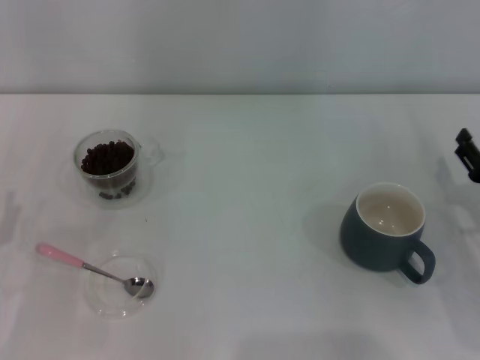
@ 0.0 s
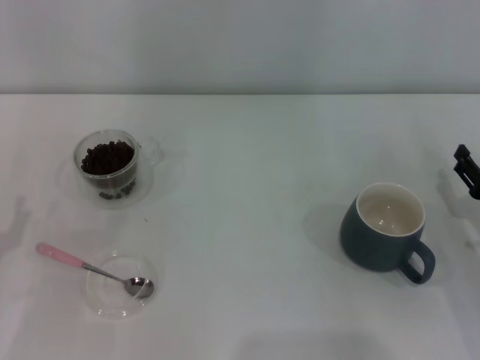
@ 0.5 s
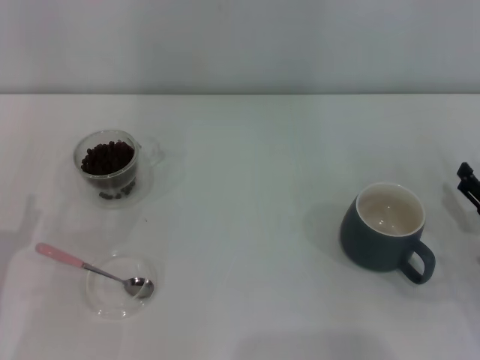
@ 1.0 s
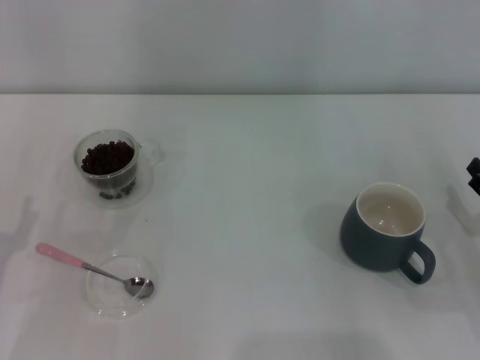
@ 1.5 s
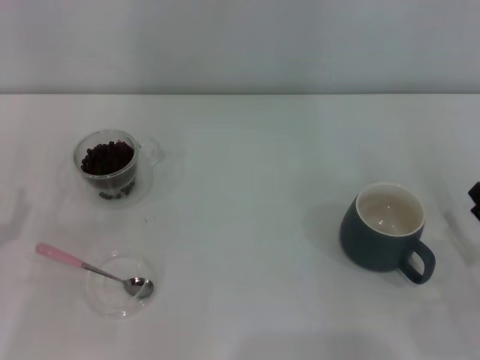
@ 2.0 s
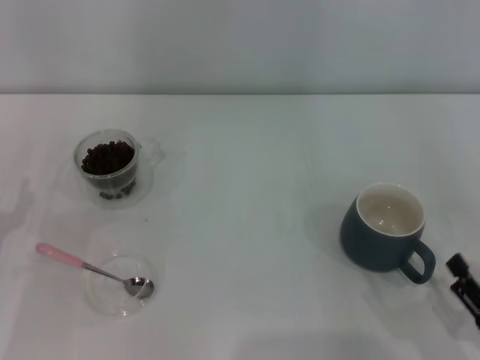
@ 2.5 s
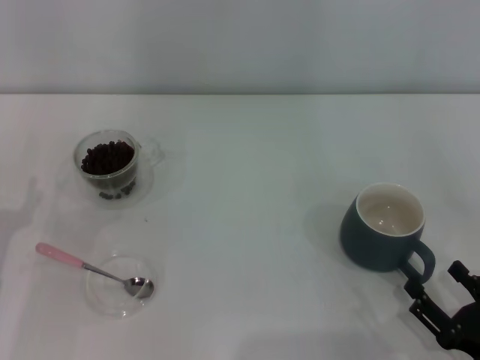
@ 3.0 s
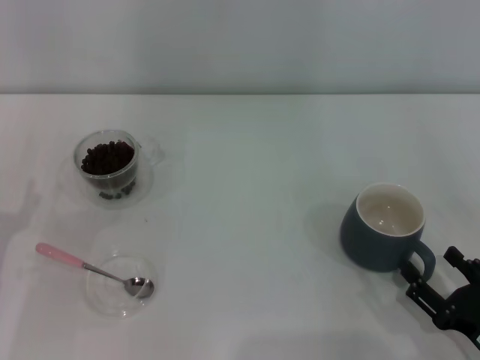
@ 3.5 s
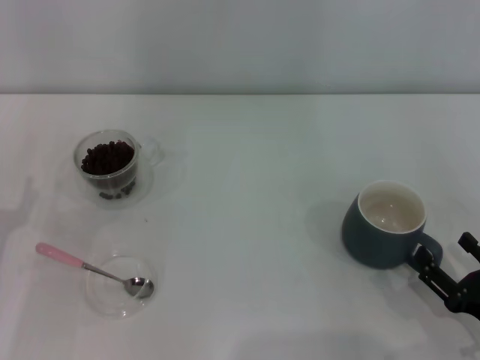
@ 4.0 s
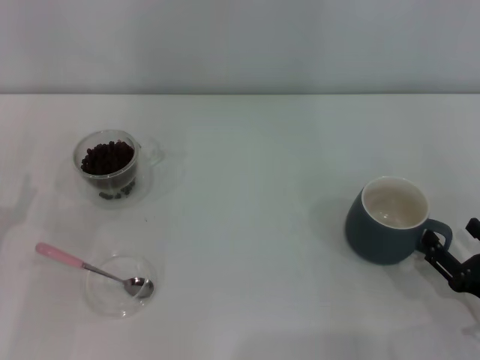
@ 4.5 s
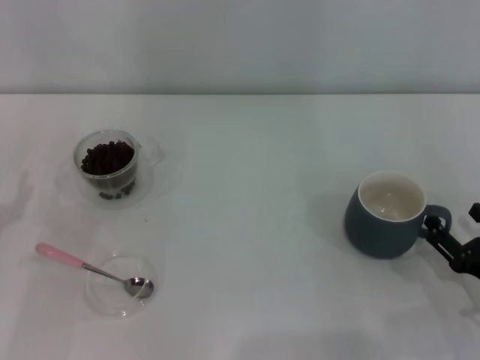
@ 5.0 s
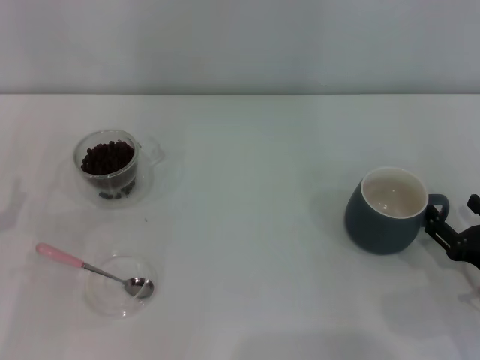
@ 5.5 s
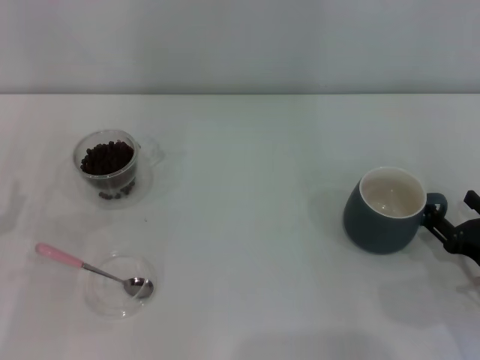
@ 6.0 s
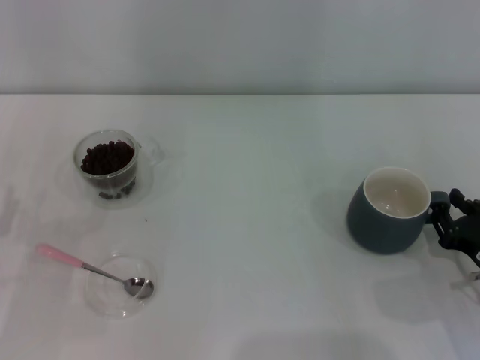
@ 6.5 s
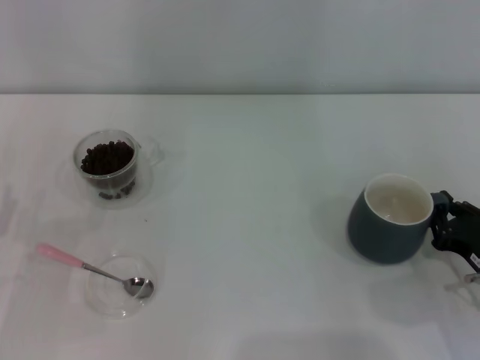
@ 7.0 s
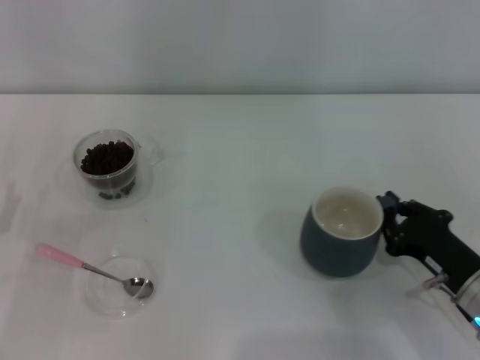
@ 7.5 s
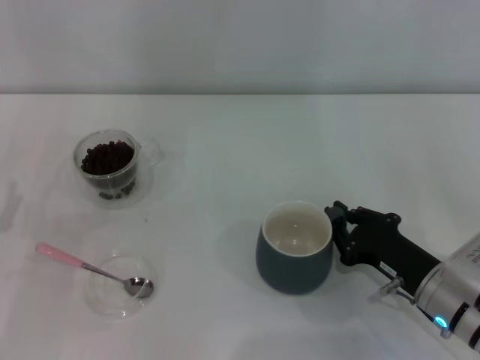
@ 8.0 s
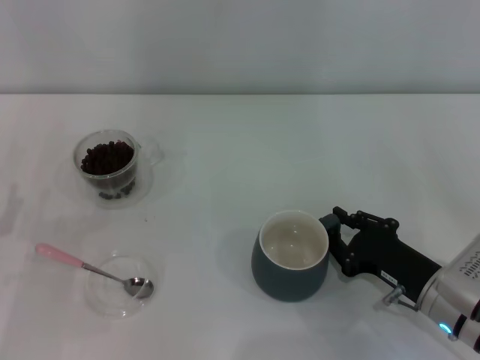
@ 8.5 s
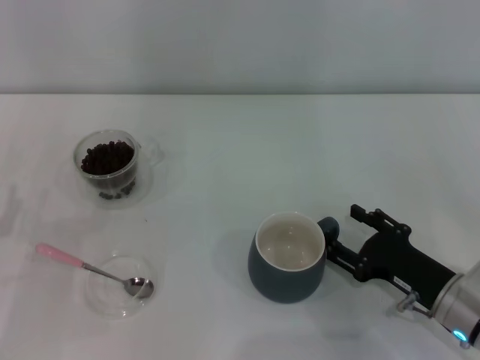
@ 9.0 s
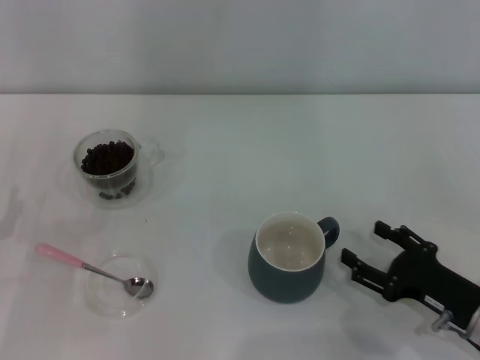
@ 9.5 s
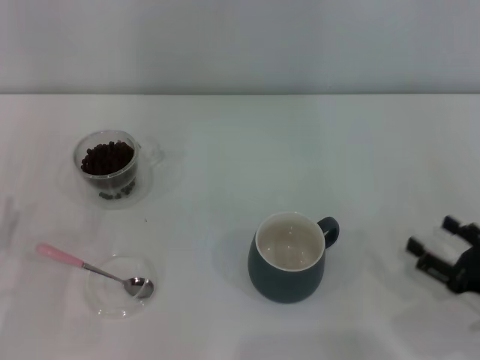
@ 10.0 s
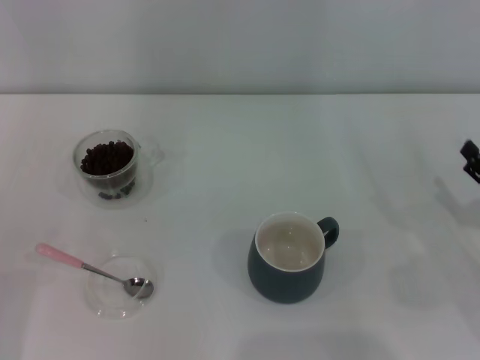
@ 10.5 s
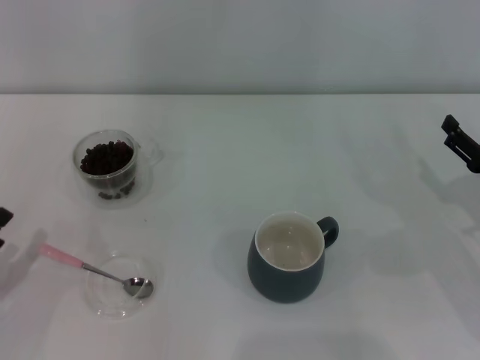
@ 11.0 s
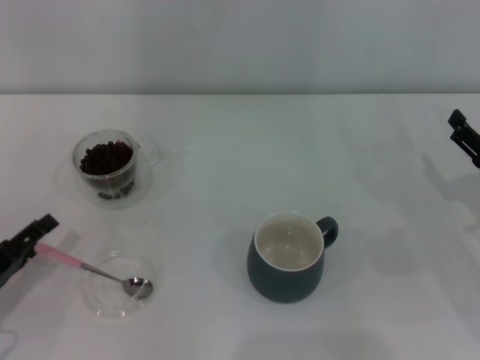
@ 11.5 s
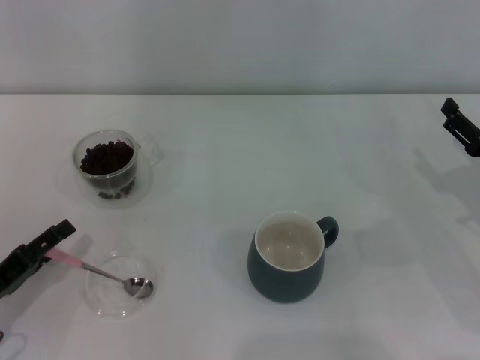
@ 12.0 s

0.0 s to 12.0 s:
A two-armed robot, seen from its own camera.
Task of the whole recording: Use a pink spoon to take out the coffee beans from the glass and pour them into the gray cup.
Step, 0.0 to 9.5 s: Move the cup to the center of view with the left gripper.
0.0 to 2.0 s: The right gripper moves backward, approximately 10 cm.
4.0 to 6.0 s: The right gripper moves forward, roughly 5 cm.
6.0 to 8.0 s: The right gripper shifts about 10 cm to the left, and closes its fingers.
8.0 to 10.0 s: The right gripper moves to the right and backward, roughly 10 cm, and opens its fingers.
10.0 to 12.0 s: The right gripper shifts roughly 10 cm forward.

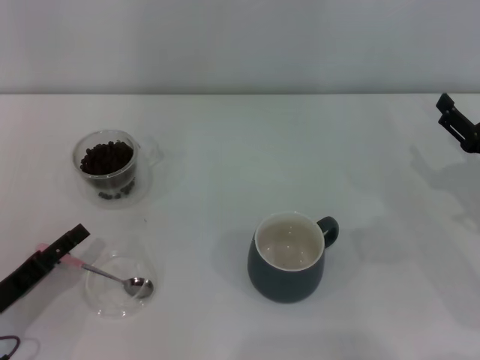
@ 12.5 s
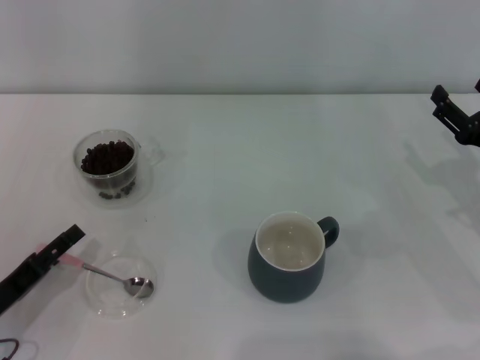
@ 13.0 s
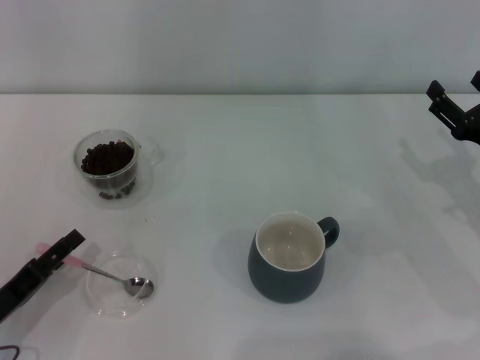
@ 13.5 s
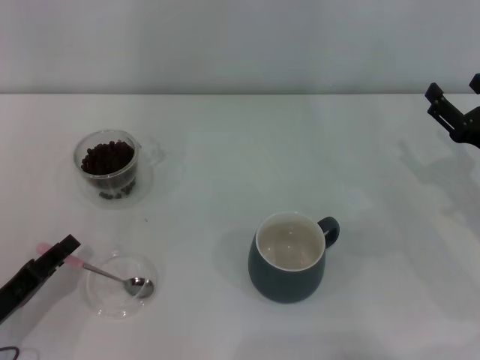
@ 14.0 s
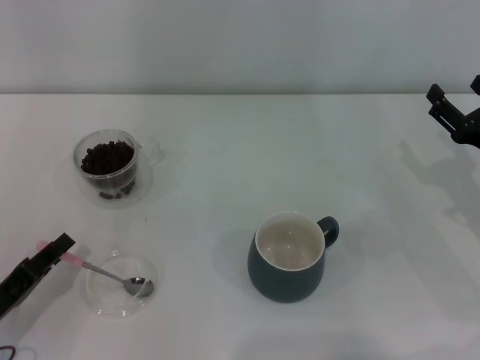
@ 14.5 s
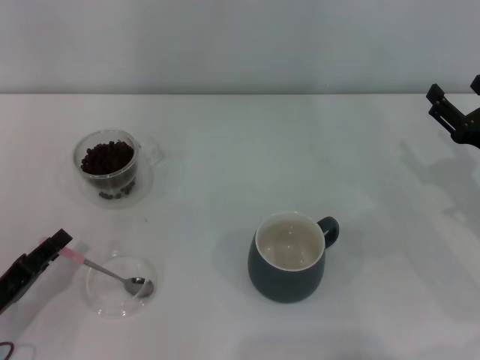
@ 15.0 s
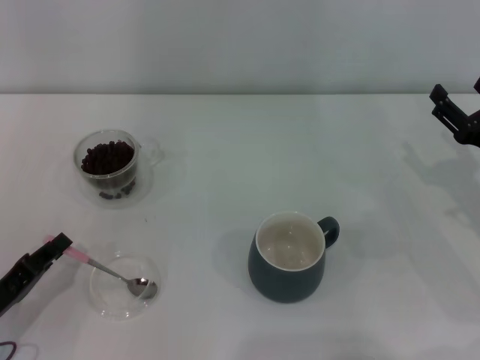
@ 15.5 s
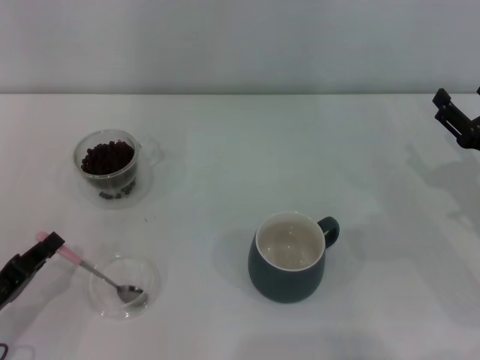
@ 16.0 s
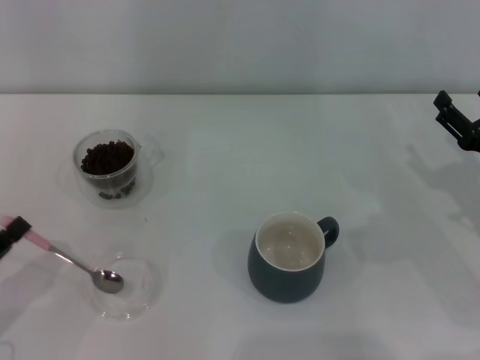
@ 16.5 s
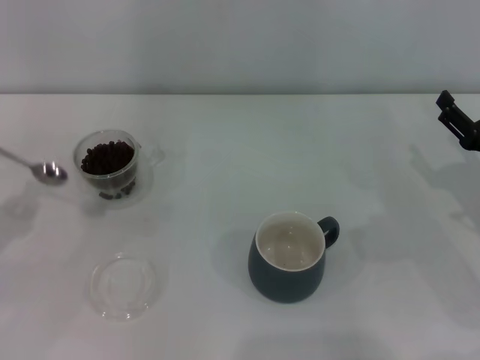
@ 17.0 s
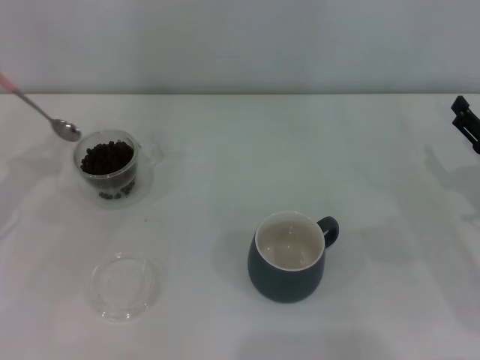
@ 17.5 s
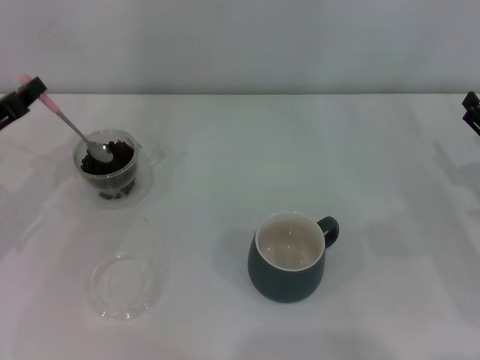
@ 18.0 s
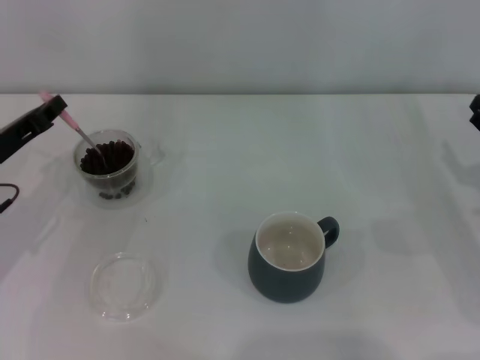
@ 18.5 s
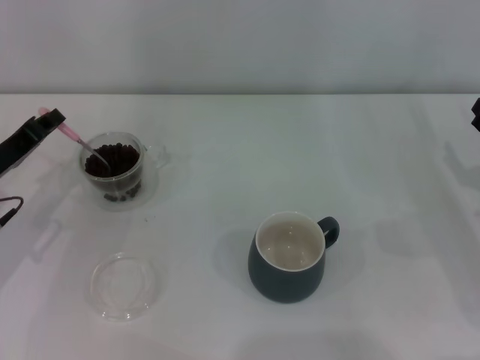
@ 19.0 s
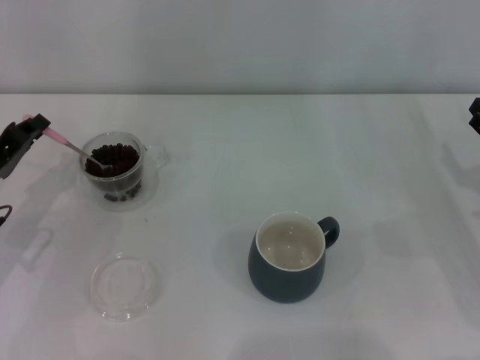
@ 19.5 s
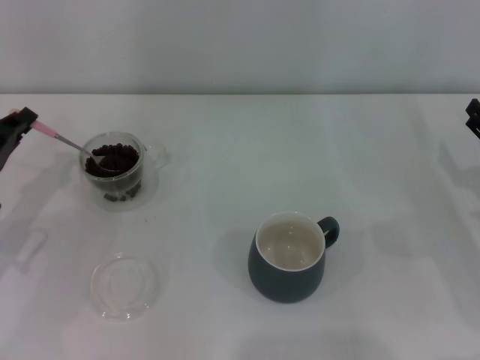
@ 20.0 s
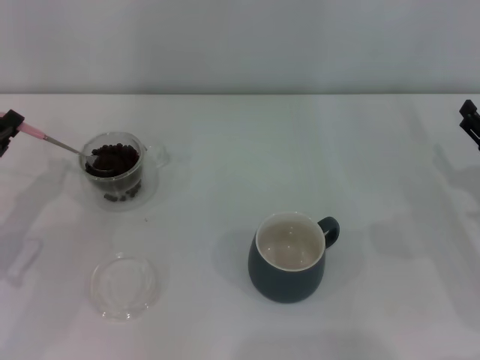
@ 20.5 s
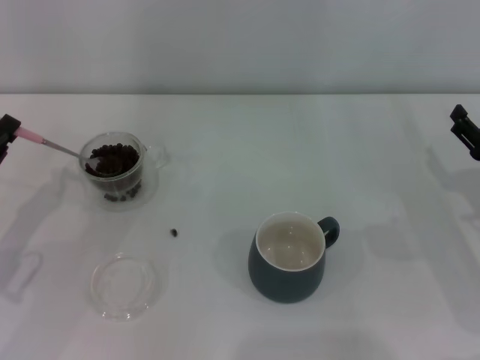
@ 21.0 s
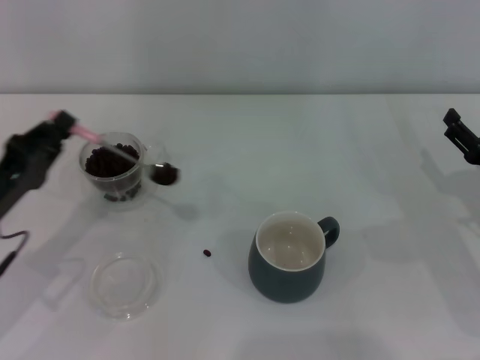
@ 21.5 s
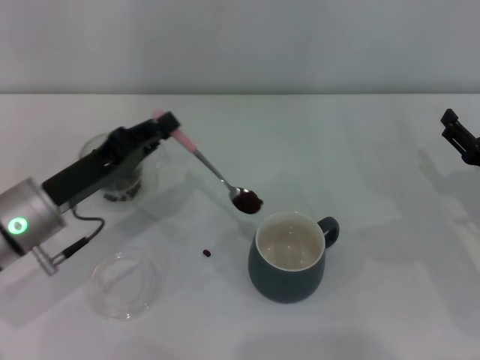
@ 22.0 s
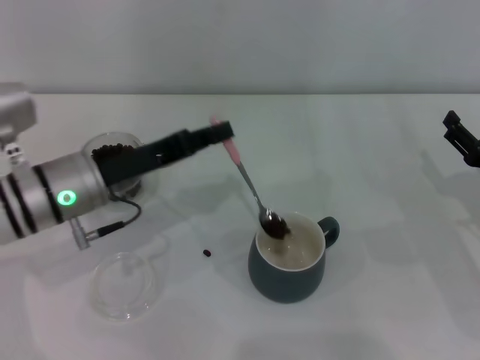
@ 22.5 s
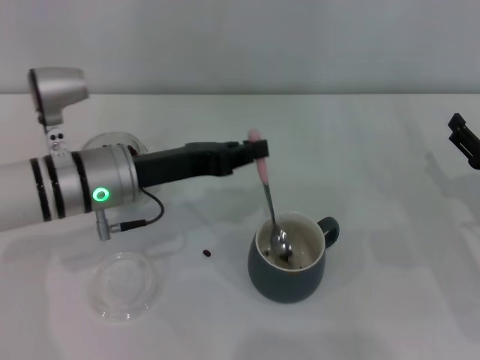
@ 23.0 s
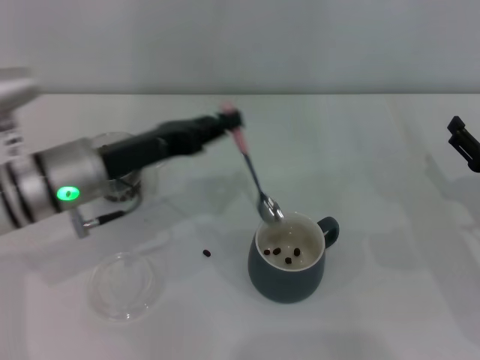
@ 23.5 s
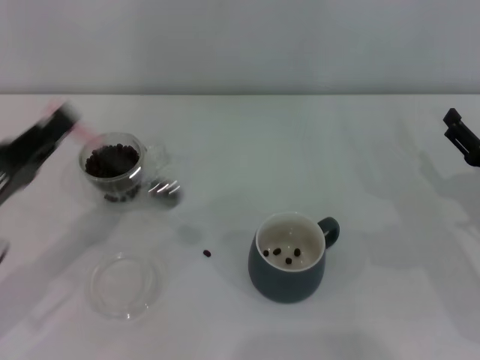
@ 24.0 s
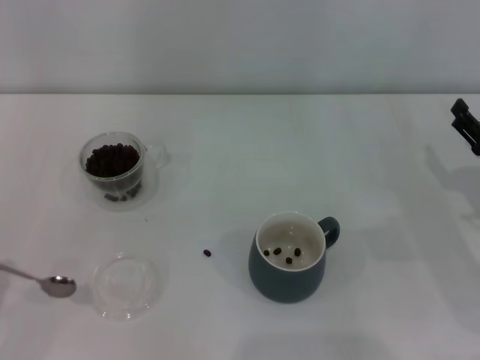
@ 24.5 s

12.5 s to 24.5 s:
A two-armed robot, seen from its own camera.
Task of the whole recording: Use a pink spoon to take out the coffee beans from the glass and pour them into the gray cup.
Step, 12.5 to 16.5 s: Pick up the spoon with the right gripper.
12.5 to 14.5 s: The left gripper closes up.
14.5 to 16.5 s: The left gripper closes its fingers.
16.5 to 18.5 s: The left gripper travels forward by about 15 cm.
18.5 to 20.5 s: The left gripper ends up about 5 cm from where it was.
20.5 to 22.5 s: The left gripper travels to the right by roughly 15 cm.
22.5 to 24.5 s: The left gripper goes some 25 cm backward and to the left.

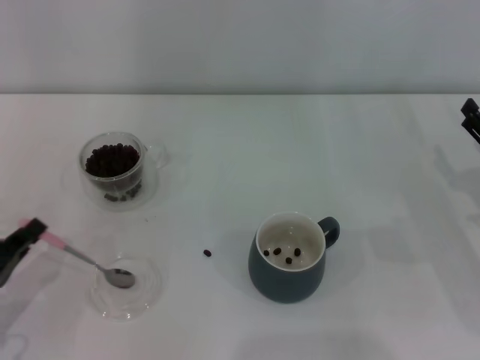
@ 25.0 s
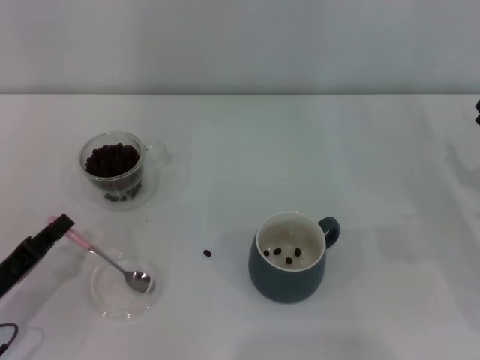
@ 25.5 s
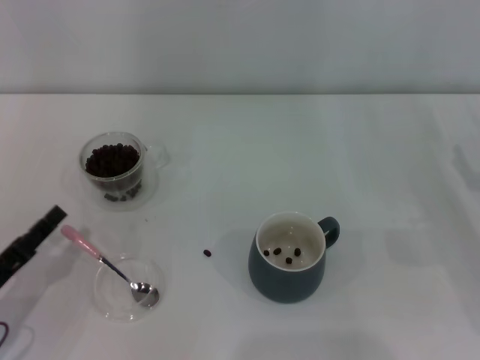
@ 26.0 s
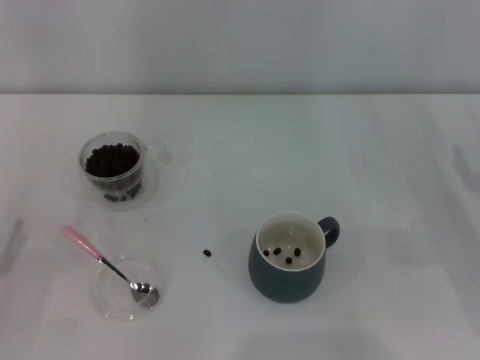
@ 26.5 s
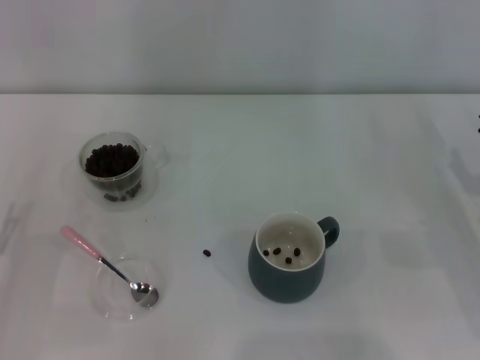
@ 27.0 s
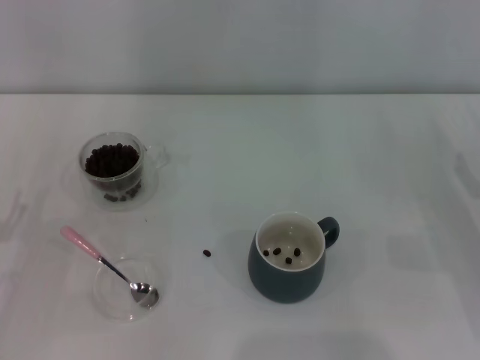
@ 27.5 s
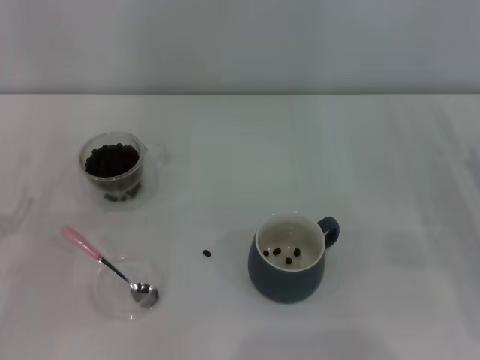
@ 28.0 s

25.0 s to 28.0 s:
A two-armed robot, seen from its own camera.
Task of the whole recording: Use a pink spoon to take out the coffee beans from the glass and pour them into the gray cup.
25.0 to 26.5 s: The left gripper opens up.
